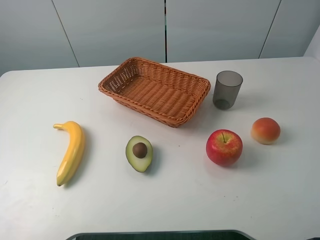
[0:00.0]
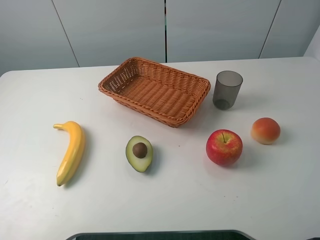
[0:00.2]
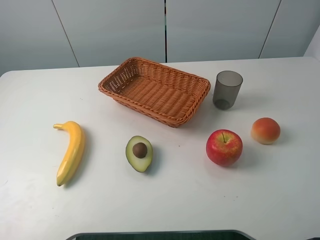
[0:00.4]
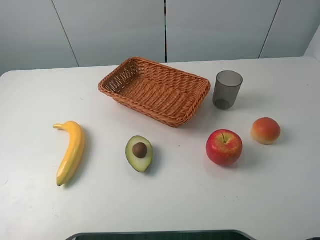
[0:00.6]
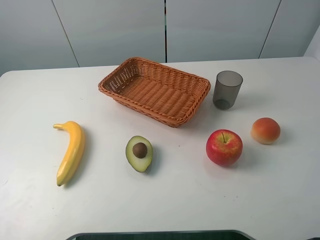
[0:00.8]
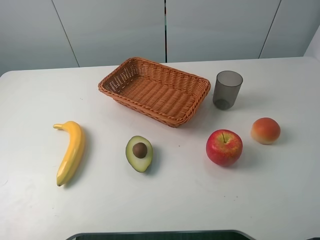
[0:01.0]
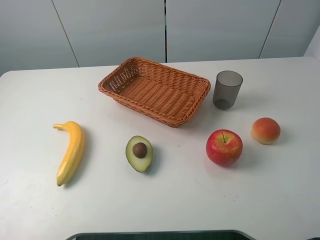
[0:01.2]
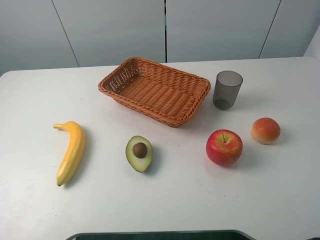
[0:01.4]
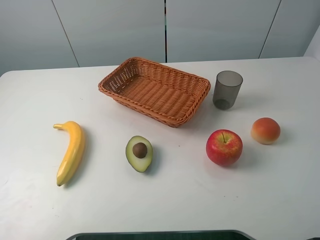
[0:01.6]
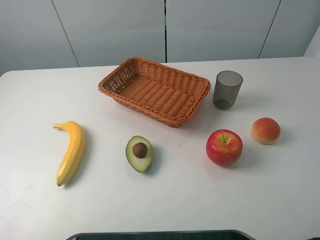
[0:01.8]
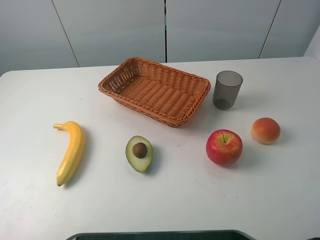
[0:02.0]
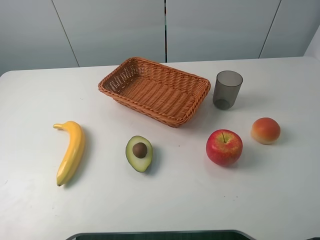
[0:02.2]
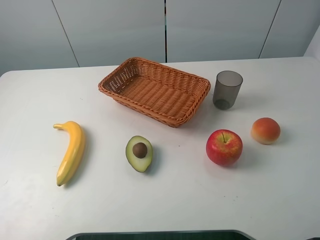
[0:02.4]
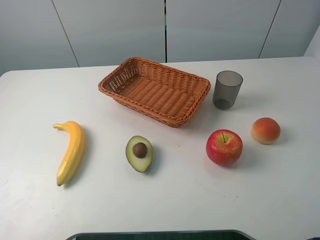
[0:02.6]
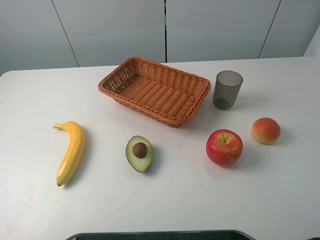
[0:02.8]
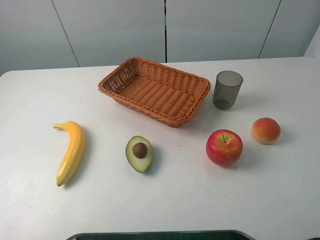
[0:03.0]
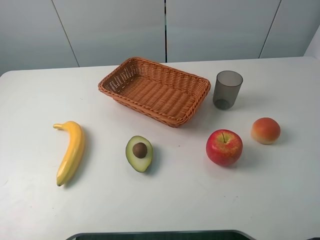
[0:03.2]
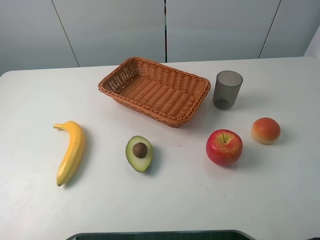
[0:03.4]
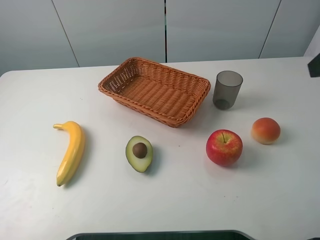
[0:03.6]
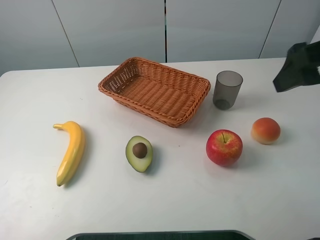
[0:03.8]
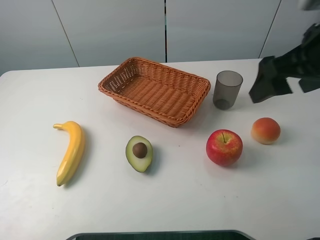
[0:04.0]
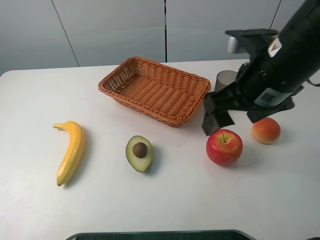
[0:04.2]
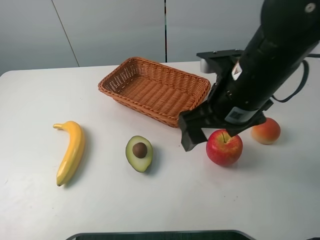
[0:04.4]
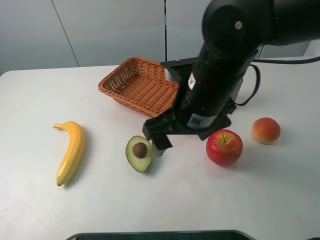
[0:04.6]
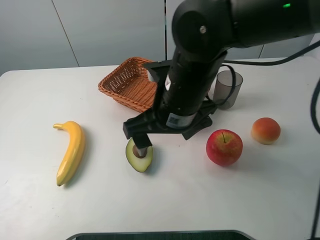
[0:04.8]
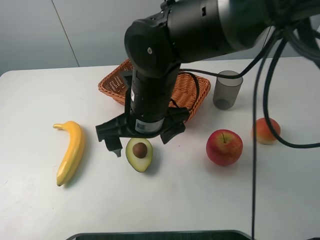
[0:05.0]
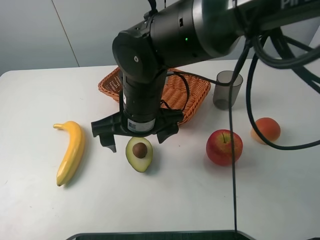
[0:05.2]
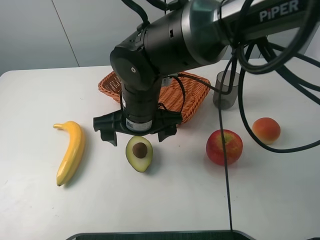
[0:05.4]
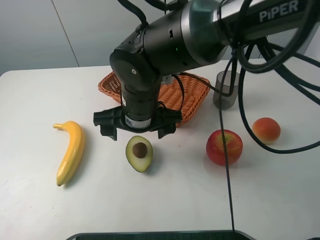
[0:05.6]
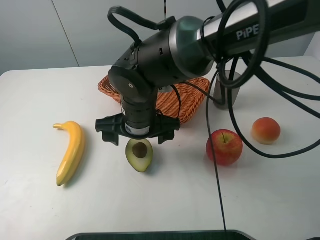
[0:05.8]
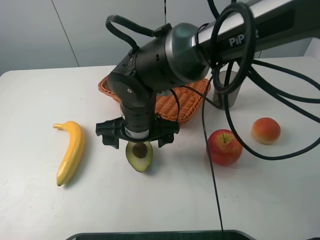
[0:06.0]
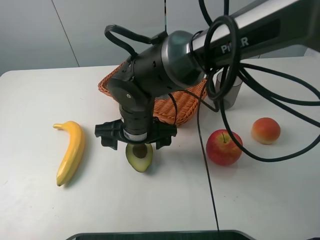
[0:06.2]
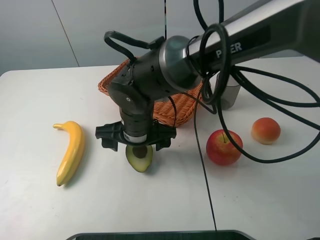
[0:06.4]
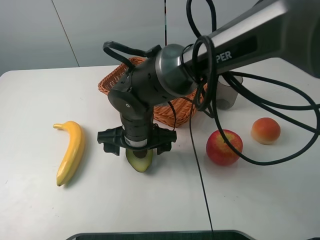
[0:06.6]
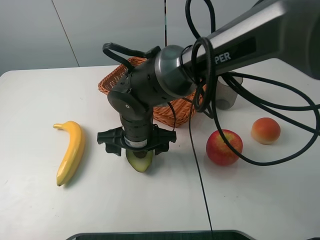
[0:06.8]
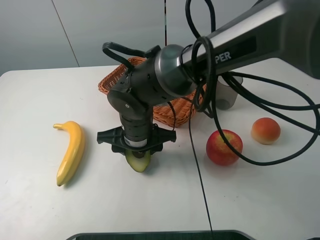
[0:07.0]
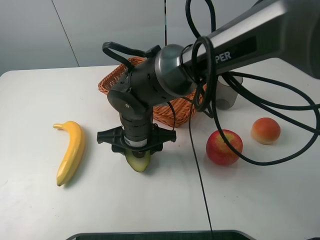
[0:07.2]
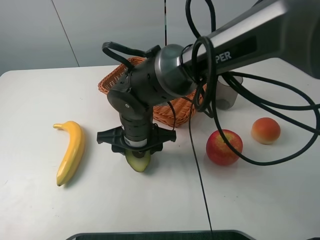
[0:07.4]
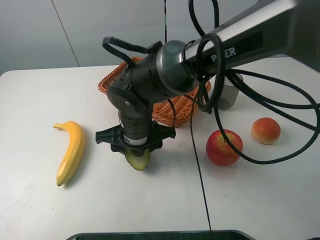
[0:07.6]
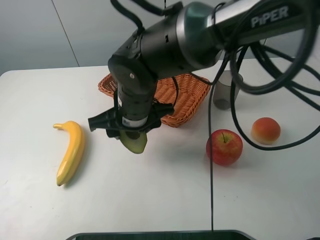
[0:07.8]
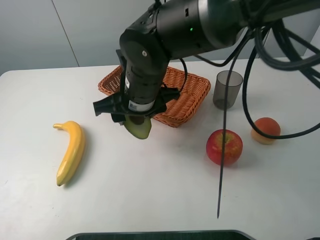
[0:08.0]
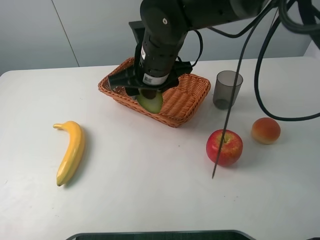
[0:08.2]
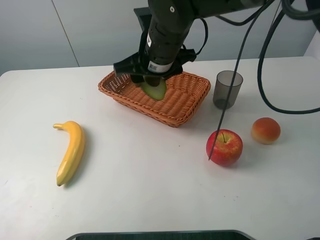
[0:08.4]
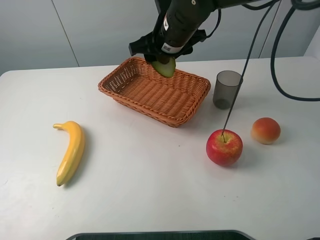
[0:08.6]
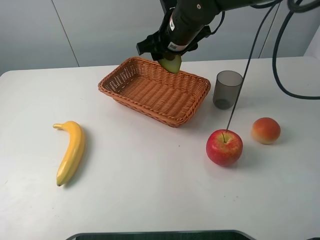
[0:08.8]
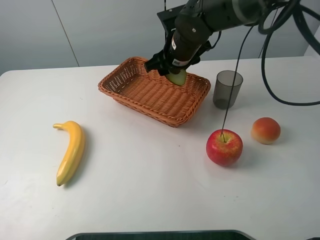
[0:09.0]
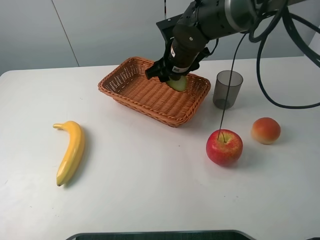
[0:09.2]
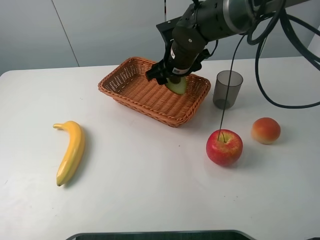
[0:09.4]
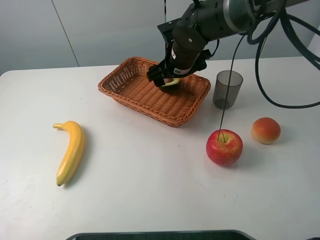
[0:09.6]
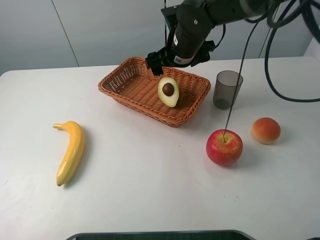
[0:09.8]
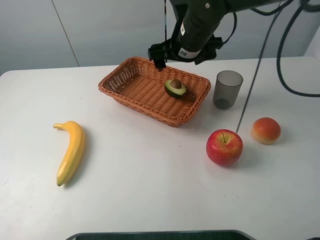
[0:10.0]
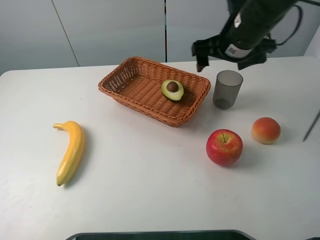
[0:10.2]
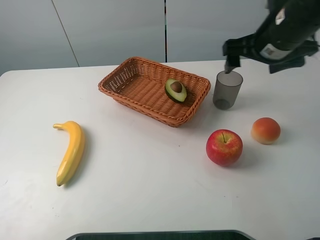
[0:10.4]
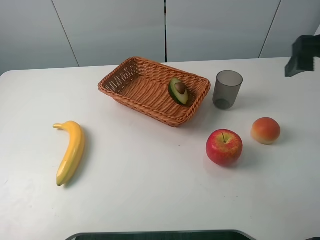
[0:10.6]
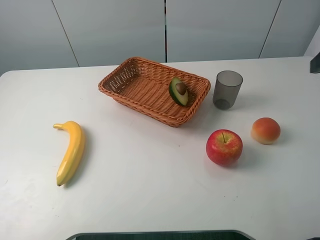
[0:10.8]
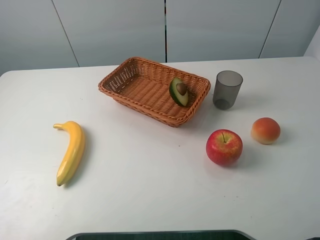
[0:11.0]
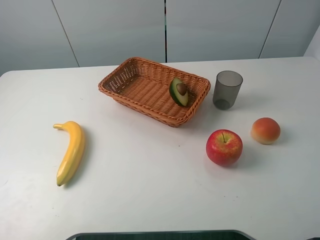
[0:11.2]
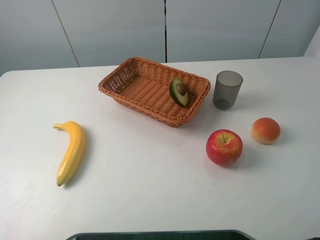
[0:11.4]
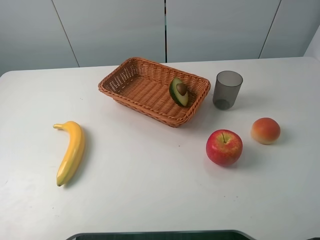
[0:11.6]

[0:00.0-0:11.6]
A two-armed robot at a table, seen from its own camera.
Task of the whole recording: randomly pick up an item from the table and put it in the basket.
Step, 0:00.0 to 0:07.2: Grasp the avocado with the right gripper.
Step, 0:07.4 to 0:10.0: Place the avocado into the basket with the right gripper.
0:00.0 to 0:01.4: Both grippers stay about where they are.
0:02.8 to 0:04.4: The right gripper shifts roughly 25 cm to the left, downward and forward.
0:04.4 to 0:05.8: The right gripper shifts approximately 15 cm to the left and downward.
0:05.8 to 0:07.2: The right gripper closes.
0:07.2 to 0:08.8: The right gripper shifts about 20 cm forward, upward and to the right.
0:08.8 to 0:10.2: The right gripper heads to the right, covering approximately 10 cm, and opens its fingers.
0:10.2 to 0:11.6: The right gripper travels backward and to the right by about 35 cm.

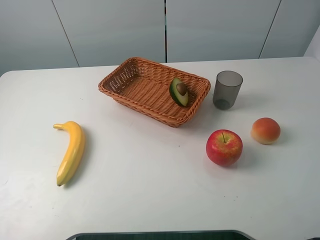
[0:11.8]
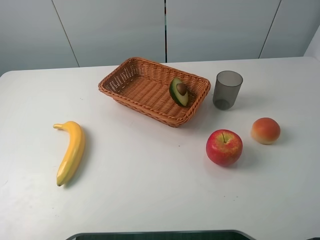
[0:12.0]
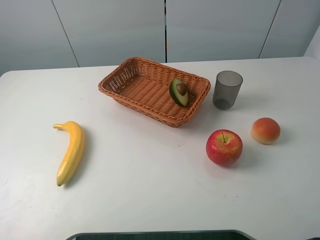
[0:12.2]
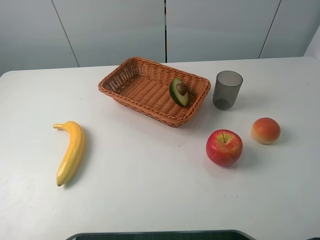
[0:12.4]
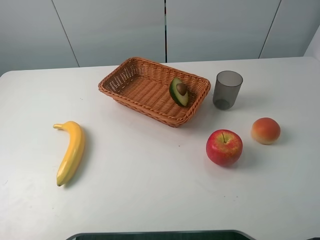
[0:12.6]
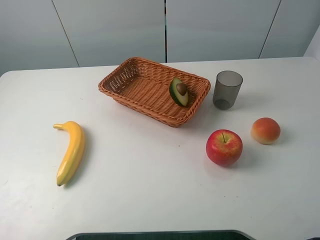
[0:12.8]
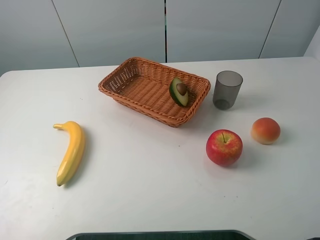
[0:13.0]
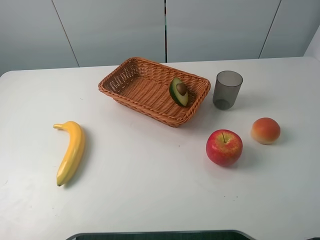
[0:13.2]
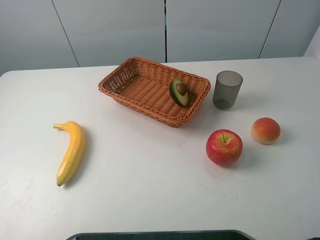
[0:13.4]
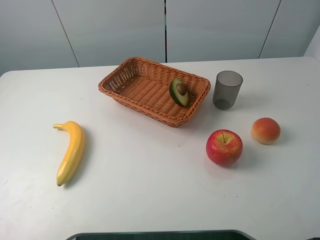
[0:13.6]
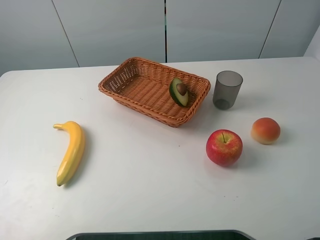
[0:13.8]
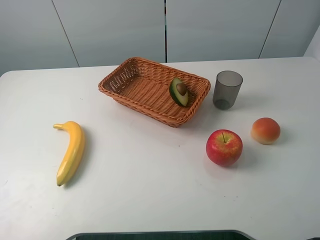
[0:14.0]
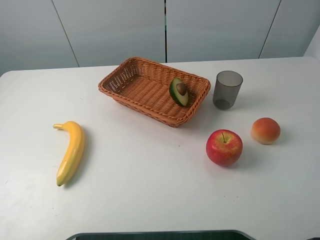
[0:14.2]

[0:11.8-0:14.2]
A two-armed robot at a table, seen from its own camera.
Task of the whole recording: randomly pick up an item from the table and put it in the basket.
0:11.8 to 0:14.2: Neither gripper changes place.

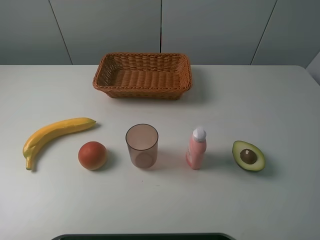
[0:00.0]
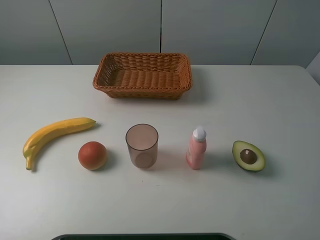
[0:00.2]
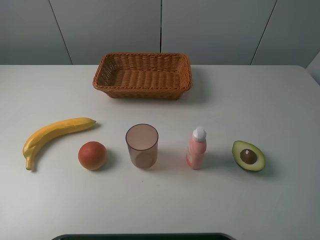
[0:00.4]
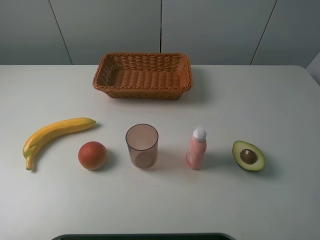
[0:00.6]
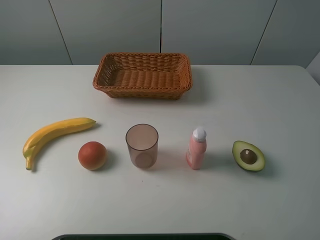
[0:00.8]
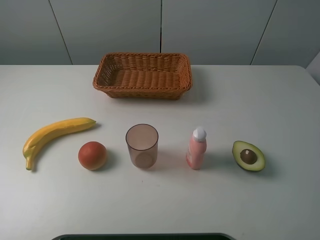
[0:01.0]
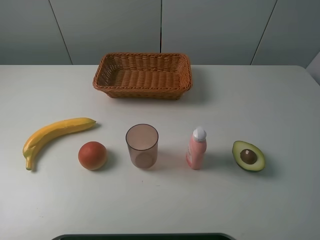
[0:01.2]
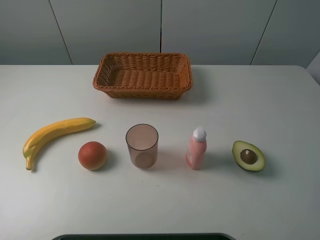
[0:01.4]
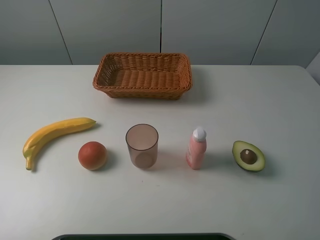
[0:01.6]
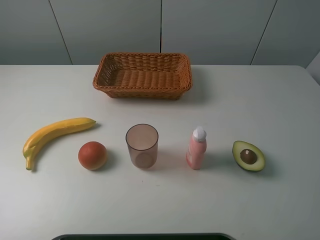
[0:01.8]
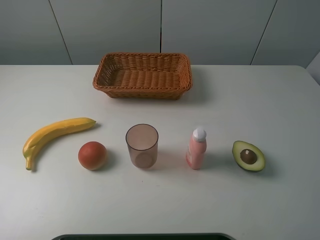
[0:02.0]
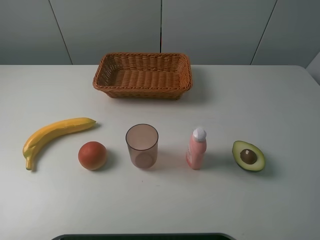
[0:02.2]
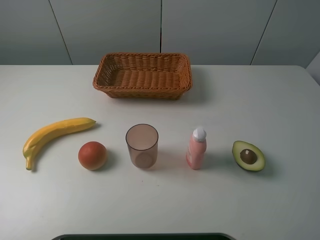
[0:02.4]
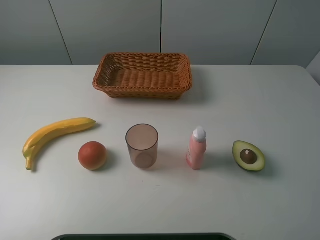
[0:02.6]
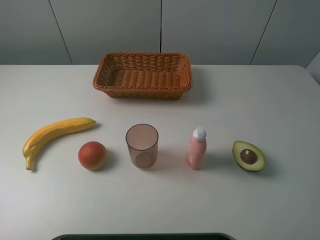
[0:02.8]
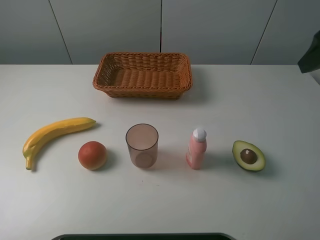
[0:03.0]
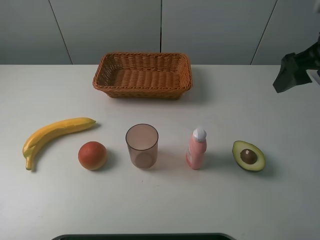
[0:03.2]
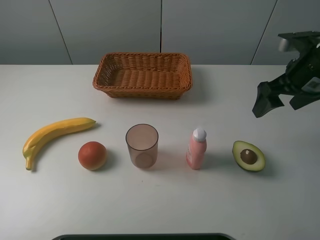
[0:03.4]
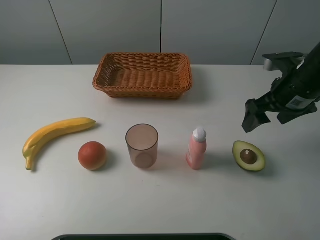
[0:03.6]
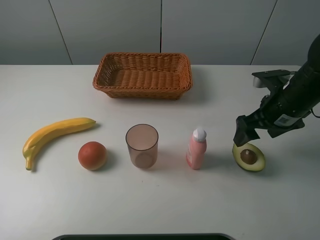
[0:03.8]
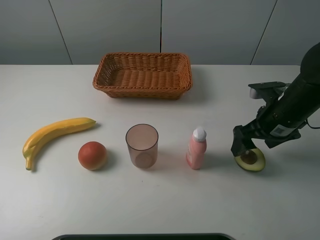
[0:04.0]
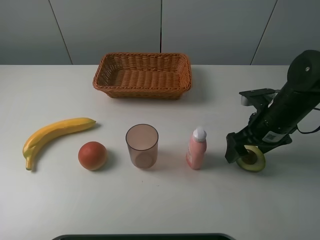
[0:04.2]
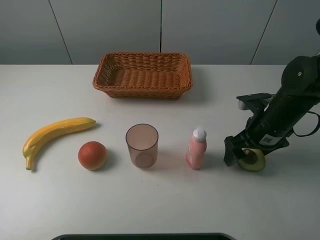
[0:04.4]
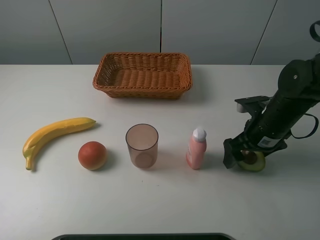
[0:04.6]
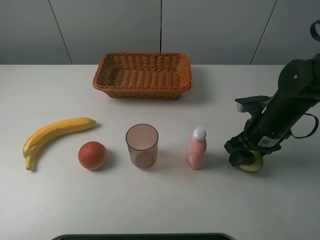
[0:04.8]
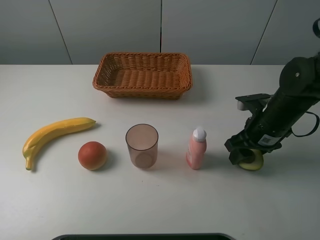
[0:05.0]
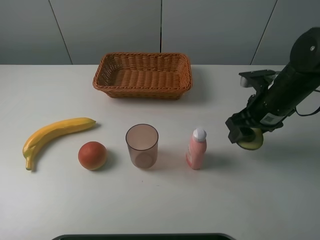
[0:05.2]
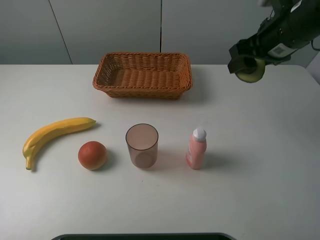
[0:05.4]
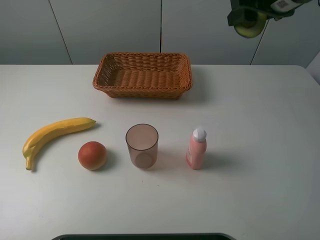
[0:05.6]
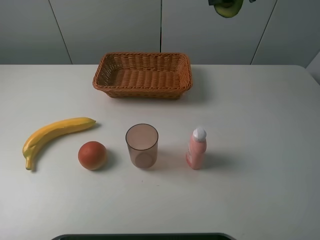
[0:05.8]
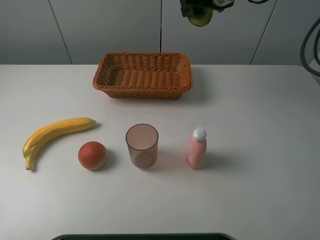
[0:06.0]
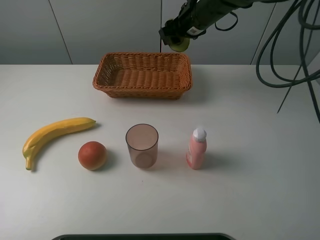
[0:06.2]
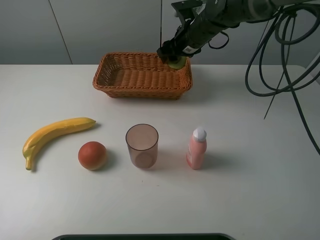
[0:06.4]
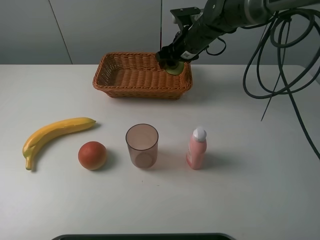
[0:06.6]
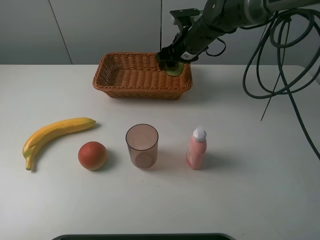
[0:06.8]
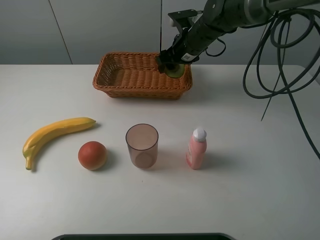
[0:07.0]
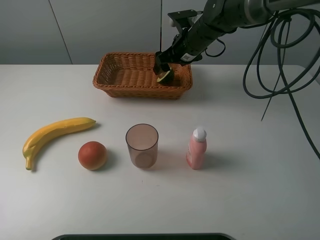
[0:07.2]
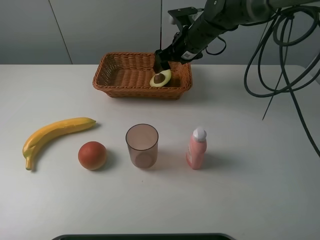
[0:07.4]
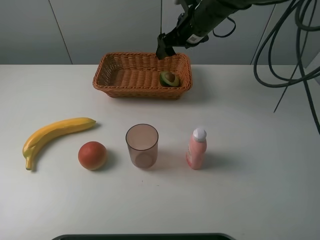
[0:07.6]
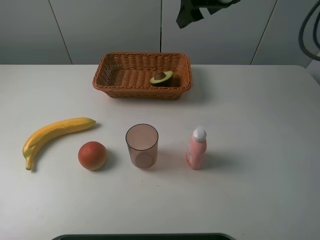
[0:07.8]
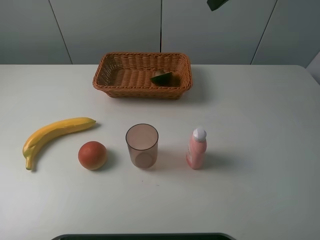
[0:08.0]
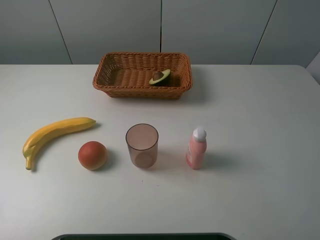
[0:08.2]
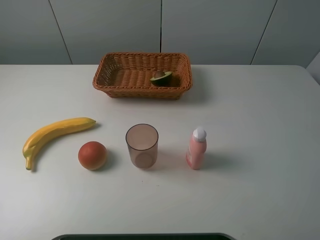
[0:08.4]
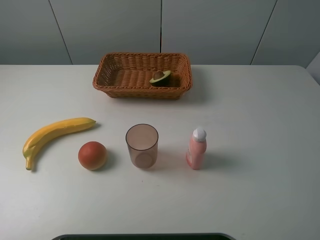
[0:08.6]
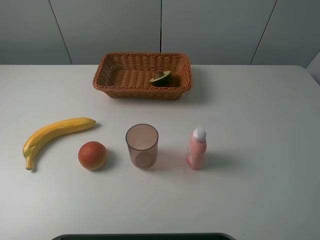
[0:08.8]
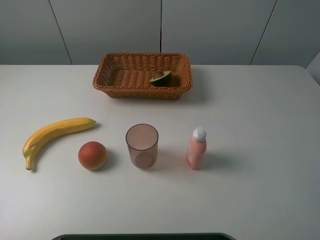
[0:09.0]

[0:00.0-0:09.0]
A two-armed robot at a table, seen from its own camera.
Task of the whole recording: randomly pick up an item from the table and put it in the basket.
Step, 0:00.0 to 0:04.8: Grasp the avocado with the right gripper.
Step, 0:05.0 to 0:07.6: Place the avocado into the basket with the right gripper.
0:00.0 to 0:01.6: The two grippers keep their place.
0:01.6 to 0:03.0: The right gripper travels forward by roughly 25 cm.
0:03.0 to 0:04.4: The right gripper goes about 20 cm downward.
0:04.4 to 0:06.0: The right gripper moves forward, upward and to the left, roughly 25 cm, and closes.
0:06.0 to 0:07.6: The right gripper heads downward, covering about 5 cm, and opens its fingers.
0:07.6 to 0:09.0: The right gripper heads backward and to the right, covering about 40 cm.
